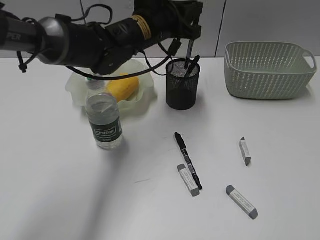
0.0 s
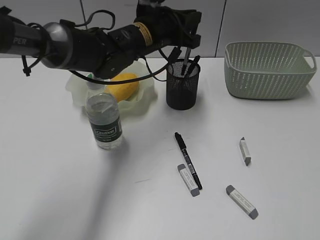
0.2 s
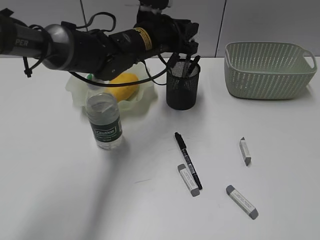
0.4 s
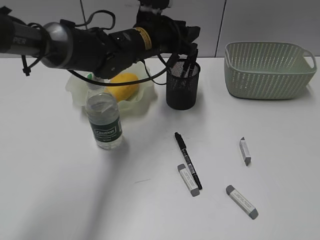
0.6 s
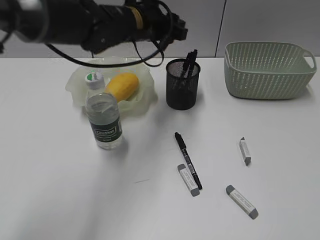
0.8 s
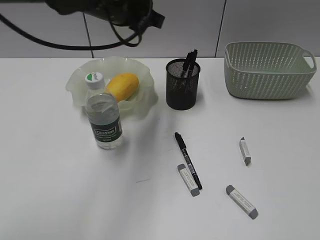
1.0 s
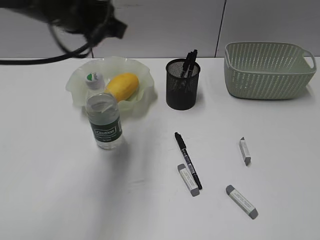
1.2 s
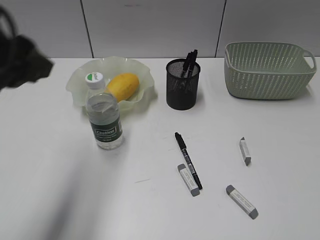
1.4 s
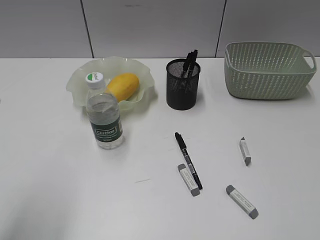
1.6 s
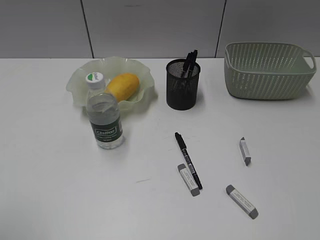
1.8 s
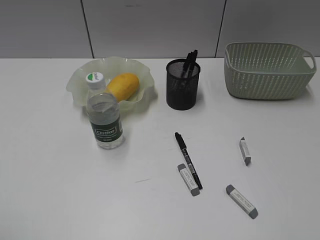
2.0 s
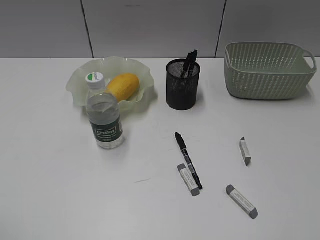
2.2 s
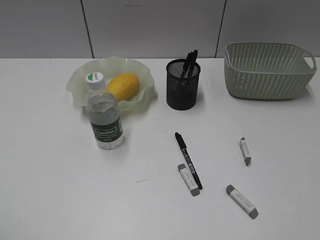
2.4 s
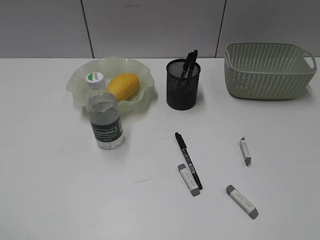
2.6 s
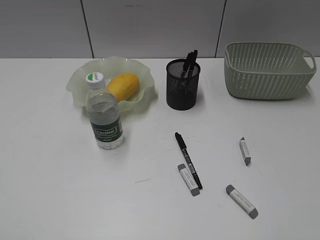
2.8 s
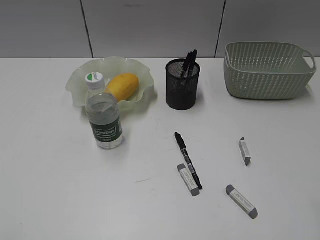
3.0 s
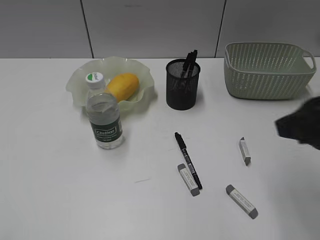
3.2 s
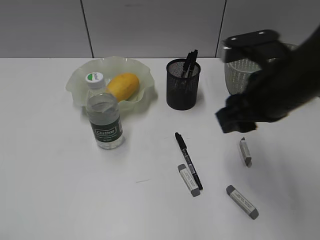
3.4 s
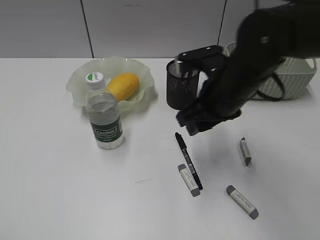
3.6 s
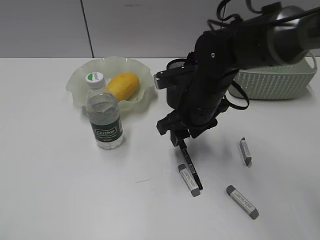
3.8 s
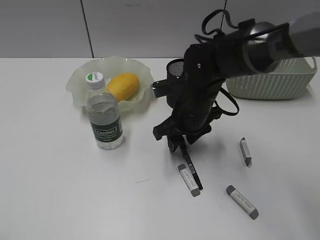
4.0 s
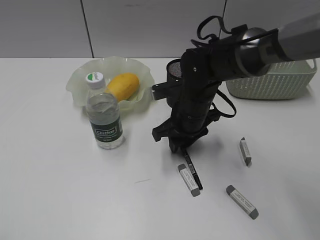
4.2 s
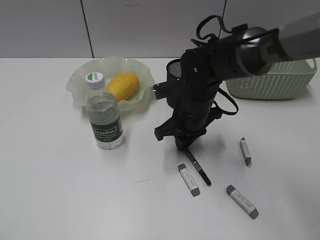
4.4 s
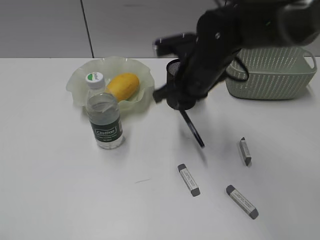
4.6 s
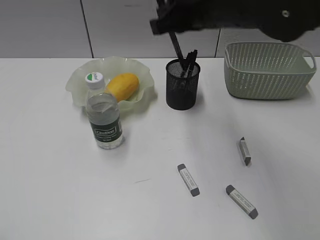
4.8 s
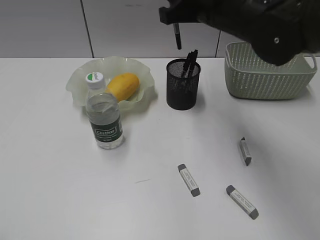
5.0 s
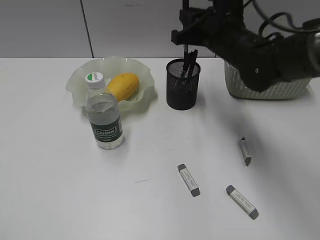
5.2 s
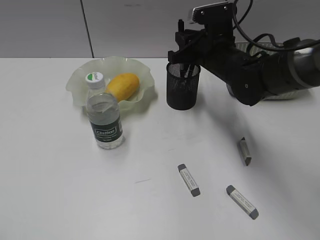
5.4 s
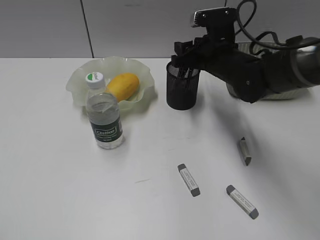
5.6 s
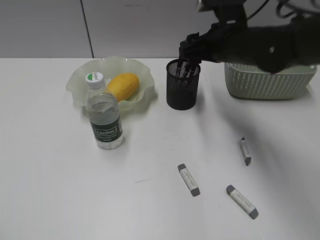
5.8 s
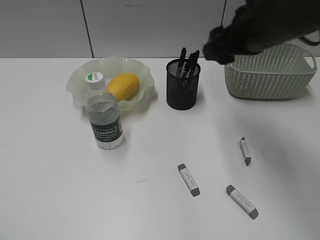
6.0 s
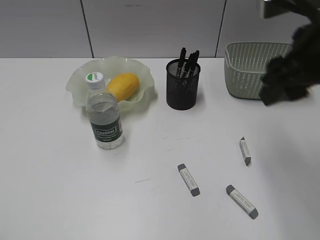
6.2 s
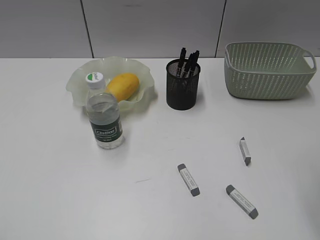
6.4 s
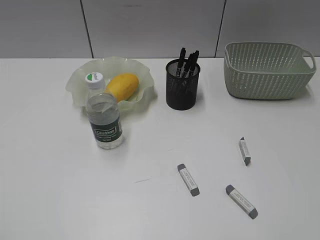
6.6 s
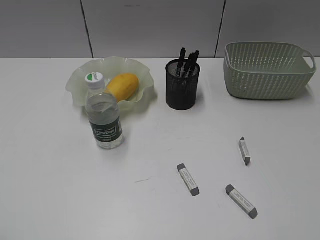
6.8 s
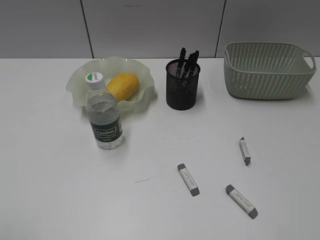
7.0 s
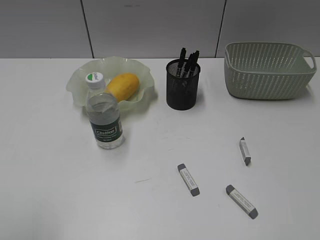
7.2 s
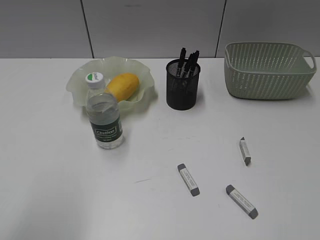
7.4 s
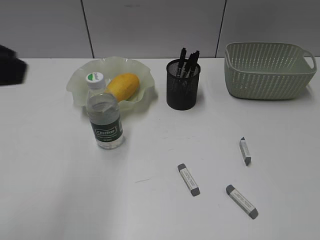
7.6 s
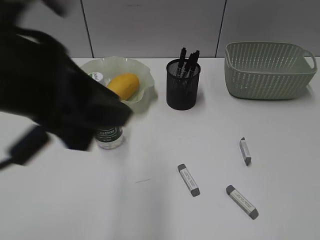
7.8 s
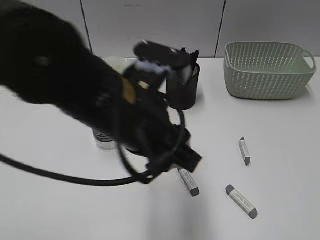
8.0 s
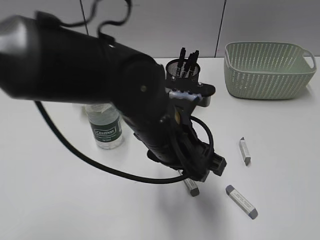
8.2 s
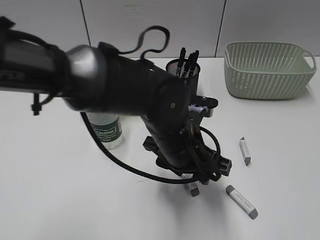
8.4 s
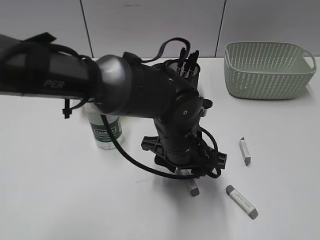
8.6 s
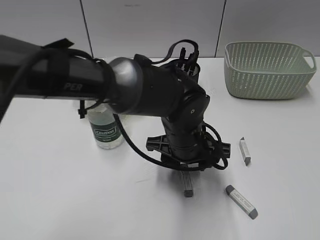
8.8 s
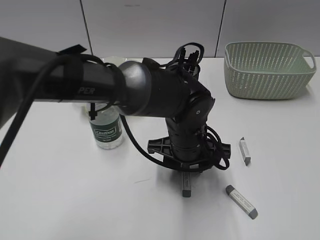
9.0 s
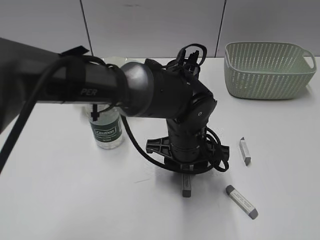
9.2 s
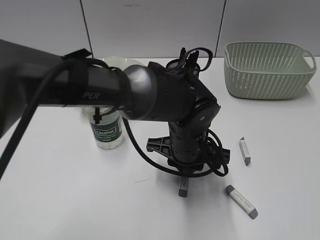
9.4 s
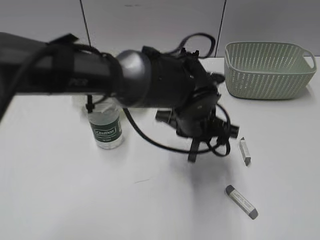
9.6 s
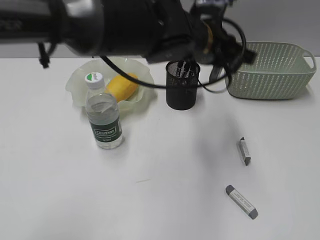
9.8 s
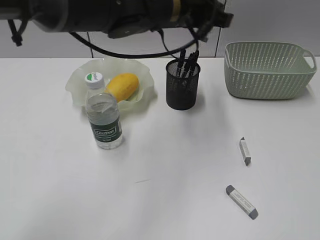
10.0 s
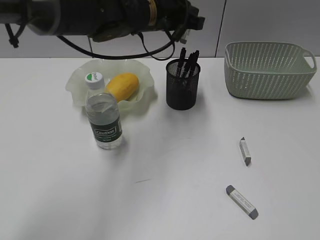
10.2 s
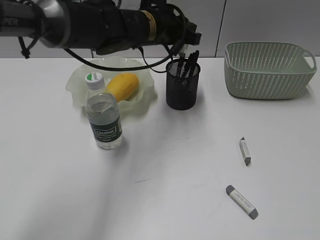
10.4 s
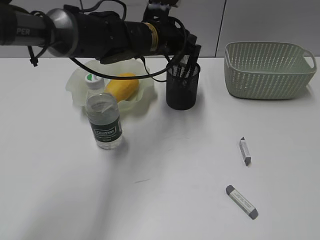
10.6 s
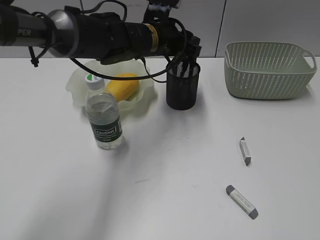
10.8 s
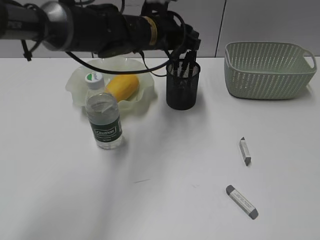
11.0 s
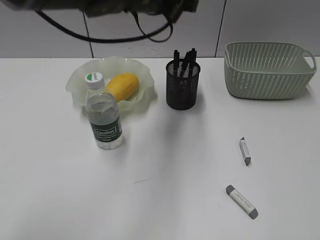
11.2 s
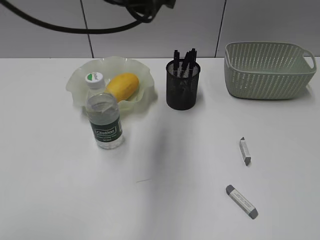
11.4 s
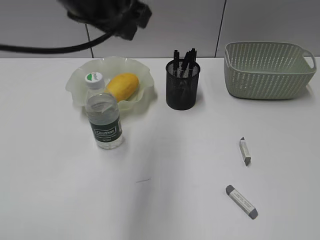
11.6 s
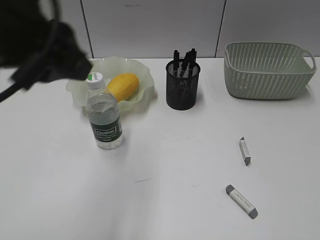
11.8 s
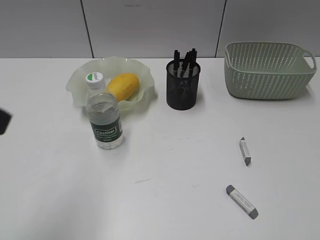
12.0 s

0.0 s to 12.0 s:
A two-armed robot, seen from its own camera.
Step, 0.6 to 4.2 s: Grasp the black pen with right gripper.
Step, 4.4 to 5.8 s: Place the black pen in pen holder with right gripper.
Step, 6.0 to 9.4 s: Grasp the eraser with left gripper.
Step, 9.6 to 11.0 s: Place the eraser in pen holder with left gripper.
0.0 to 1.6 s: The left gripper travels backward and to the left by roughly 40 cm, and opens.
1.6 to 3.0 s: The left gripper goes some 15 cm backward and to the left.
3.0 to 4.4 s: The right gripper goes about 40 cm forward, to the left and downward, and closes up.
4.4 to 6.0 s: The right gripper goes up and down, approximately 20 cm each way, reversing 2 times, and opens up.
6.0 to 7.6 s: The left gripper goes approximately 20 cm forward, to the right and upward, while the right gripper goes approximately 35 cm backward and to the right.
7.6 to 9.0 s: The left gripper goes about 35 cm to the right, downward and forward.
9.0 to 10.4 s: The left gripper shifts about 20 cm forward, upward and to the left, and closes up.
10.4 to 12.0 s: The left gripper heads backward and to the left, covering some 35 cm.

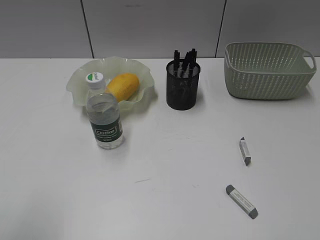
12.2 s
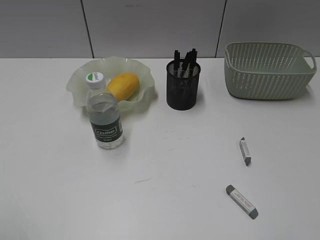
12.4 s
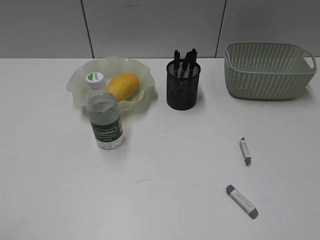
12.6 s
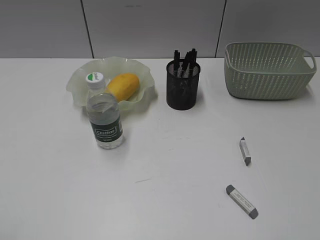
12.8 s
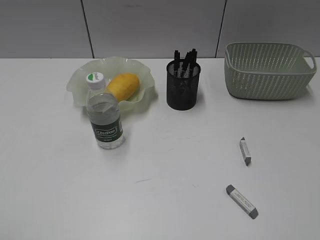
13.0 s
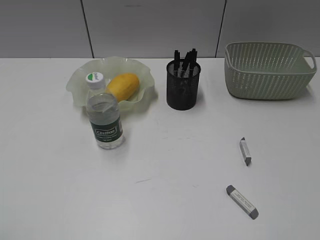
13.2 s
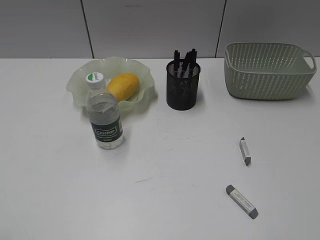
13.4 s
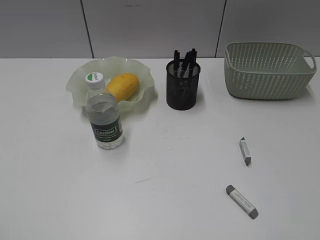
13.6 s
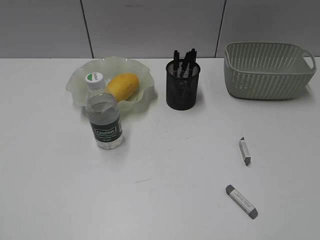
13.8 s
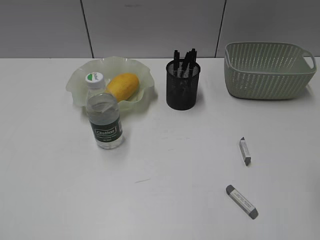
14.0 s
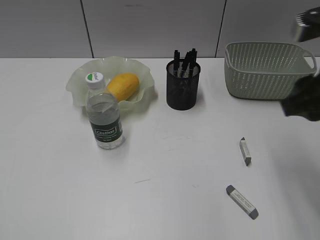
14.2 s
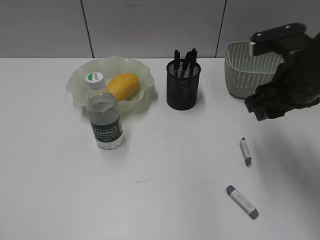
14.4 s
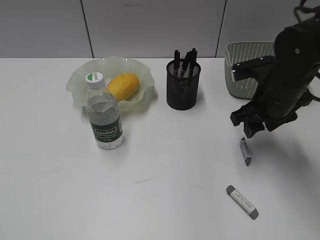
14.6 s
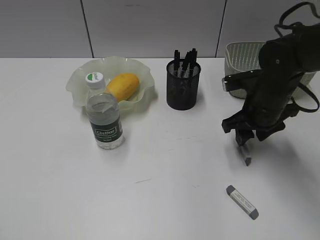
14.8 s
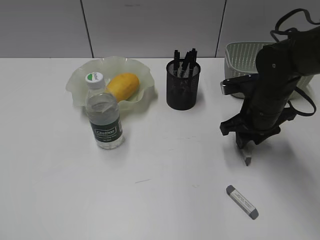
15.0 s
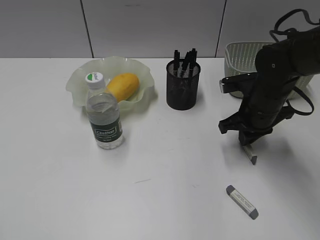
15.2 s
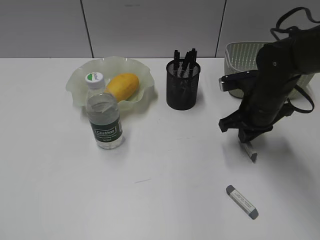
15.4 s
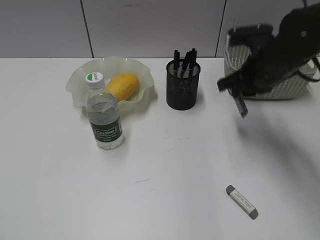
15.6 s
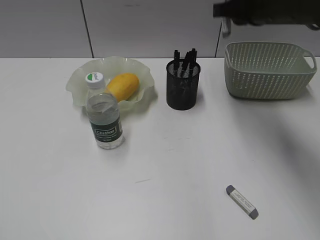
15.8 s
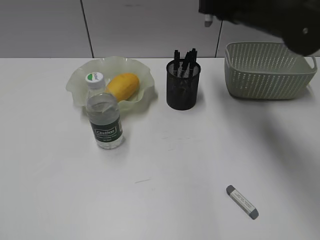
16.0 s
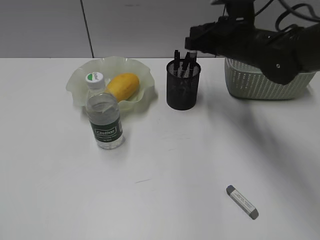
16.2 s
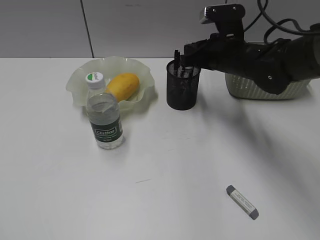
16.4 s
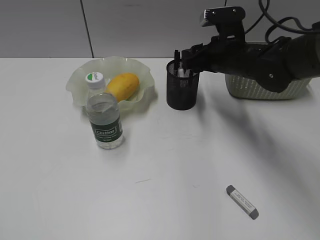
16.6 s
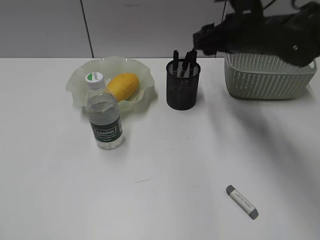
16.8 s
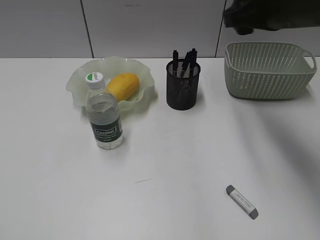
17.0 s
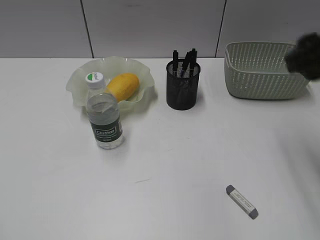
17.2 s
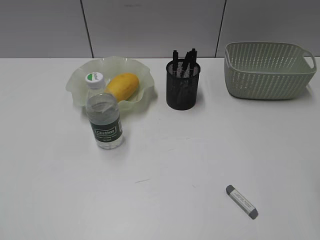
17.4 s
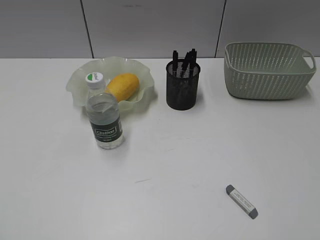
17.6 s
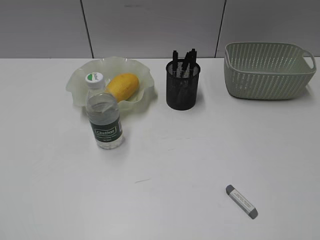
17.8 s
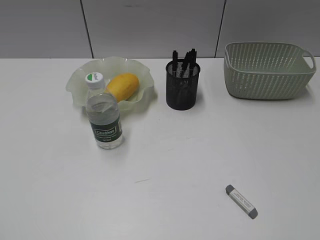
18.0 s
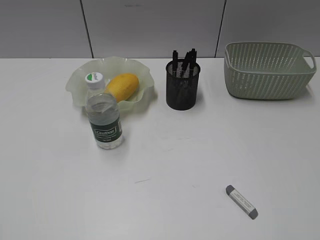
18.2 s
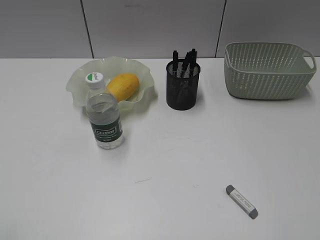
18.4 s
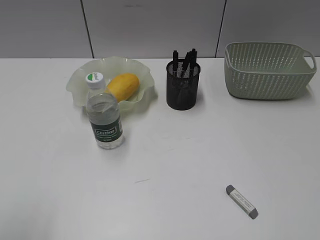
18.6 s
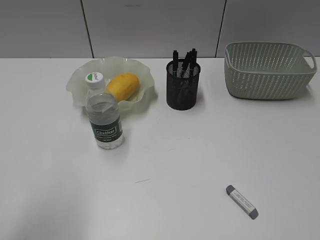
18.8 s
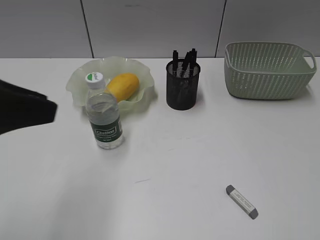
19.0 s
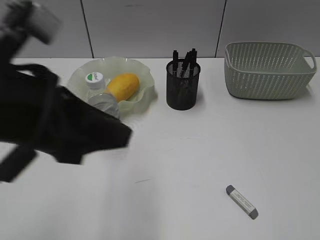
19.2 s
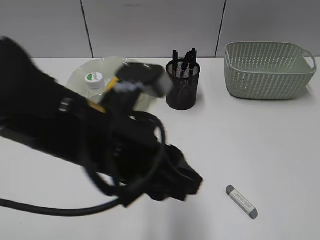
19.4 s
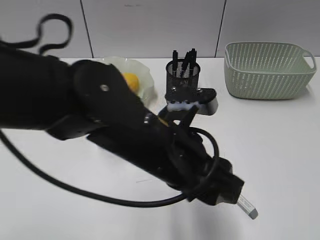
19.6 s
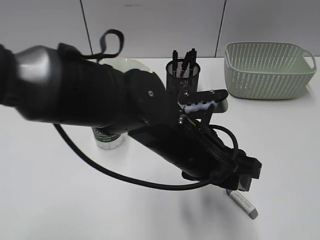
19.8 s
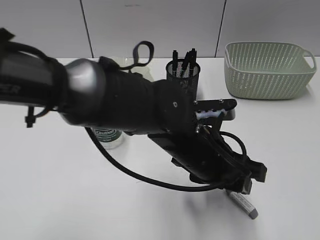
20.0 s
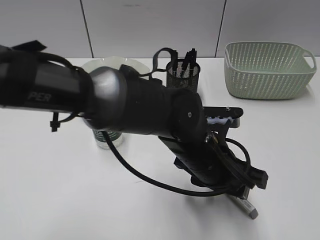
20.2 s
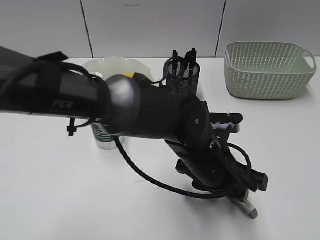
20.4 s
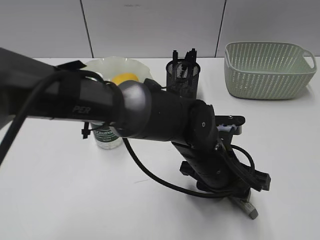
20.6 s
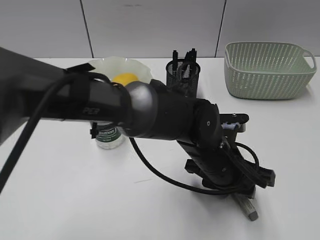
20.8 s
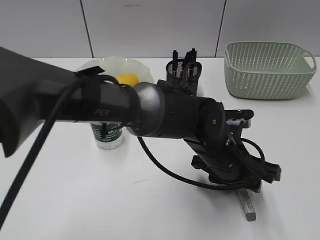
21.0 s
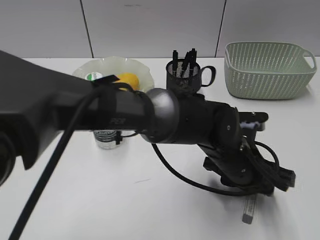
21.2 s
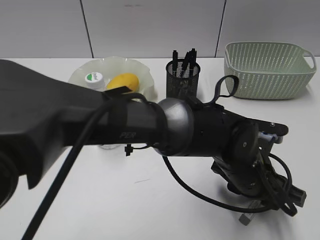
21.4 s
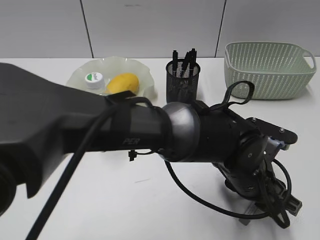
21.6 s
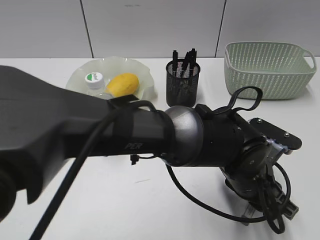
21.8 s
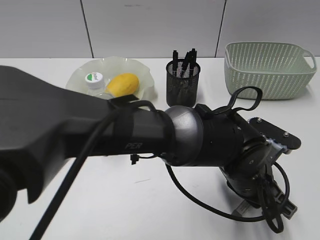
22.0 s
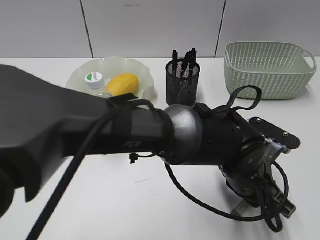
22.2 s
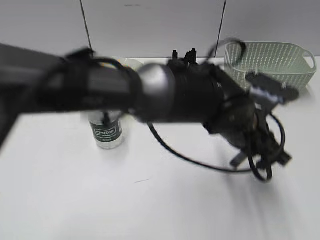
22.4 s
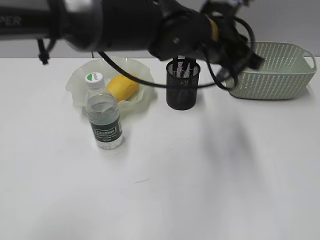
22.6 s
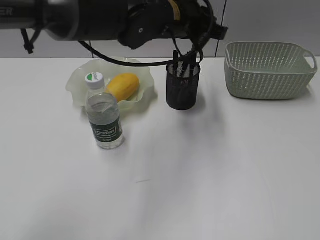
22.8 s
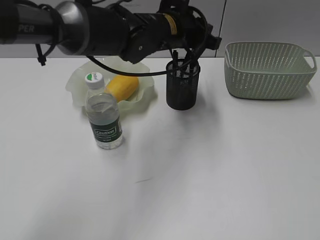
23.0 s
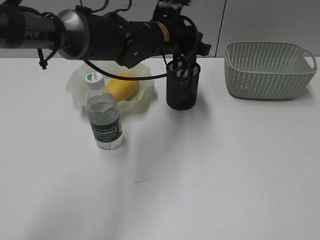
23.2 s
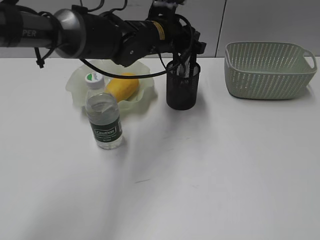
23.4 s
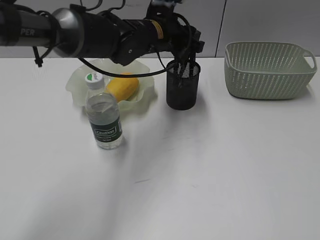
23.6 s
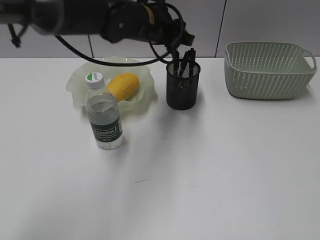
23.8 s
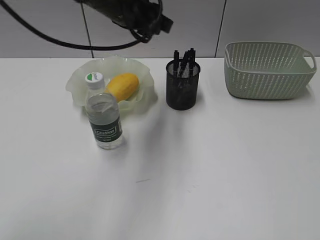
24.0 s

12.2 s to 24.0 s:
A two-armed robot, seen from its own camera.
Step, 12.2 to 15.2 s: Grasp the eraser with right gripper.
Step, 15.4 to 16.6 s: Place the eraser in pen holder with right gripper.
Step, 16.8 to 22.0 s: Grasp the eraser with left gripper.
Step, 22.2 to 23.6 s: Place the eraser in pen holder with left gripper.
13.6 to 15.2 s: The right gripper heads forward and downward, covering about 40 cm, and opens, then closes again.
15.2 to 16.6 s: The right gripper is displaced forward by some 5 cm, reaches about 15 cm upward, then returns, and opens.
16.6 to 18.2 s: The right gripper moves backward and to the right, approximately 40 cm.
18.2 to 19.6 s: The left gripper moves to the right and forward, approximately 40 cm.
19.6 to 21.0 s: The left gripper is displaced to the right, downward and forward by some 15 cm.
21.0 to 22.6 s: The left gripper heads upward and forward, covering approximately 15 cm, and closes.
22.6 to 24.0 s: The left gripper goes some 10 cm to the left.
